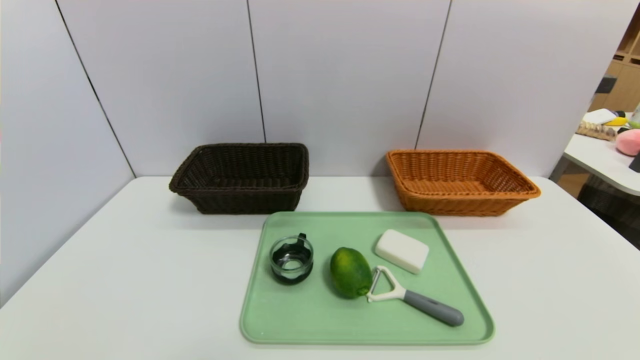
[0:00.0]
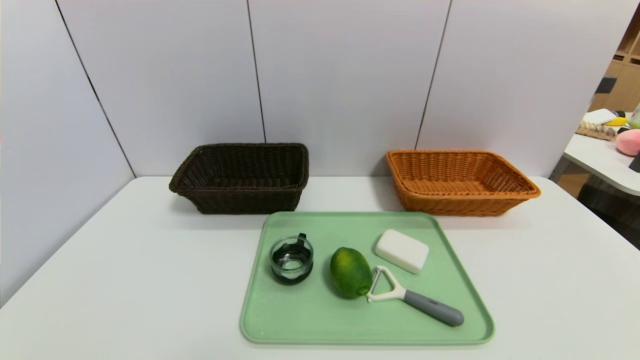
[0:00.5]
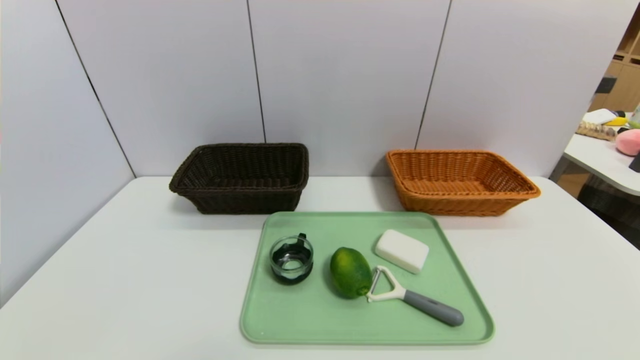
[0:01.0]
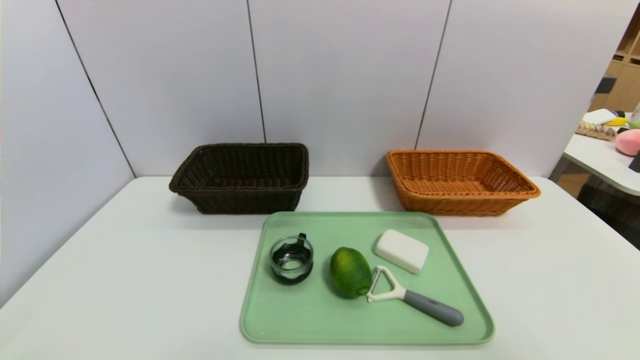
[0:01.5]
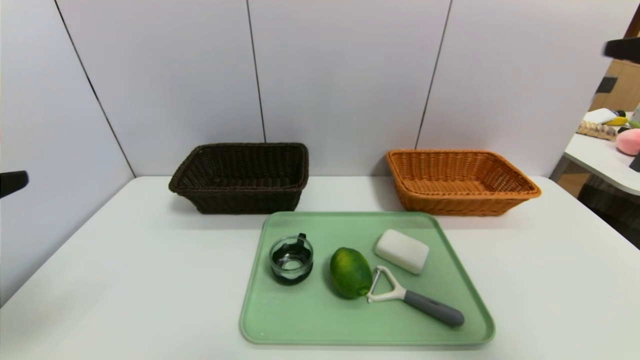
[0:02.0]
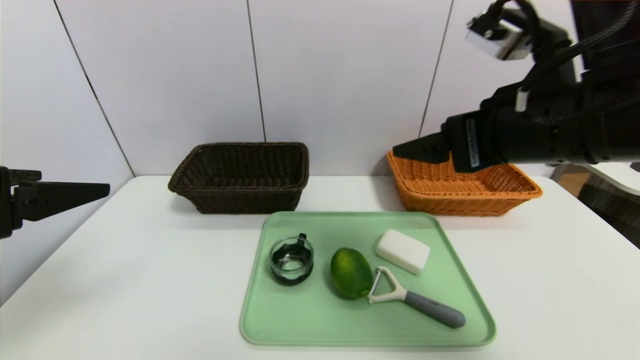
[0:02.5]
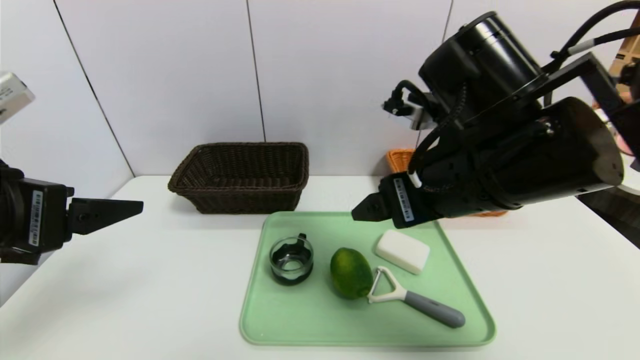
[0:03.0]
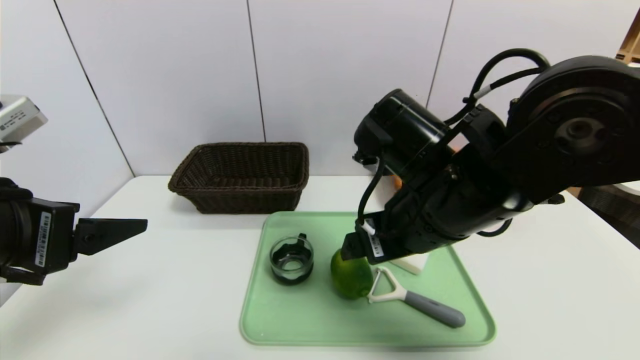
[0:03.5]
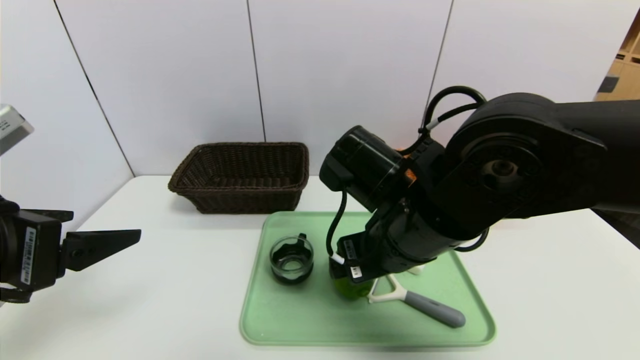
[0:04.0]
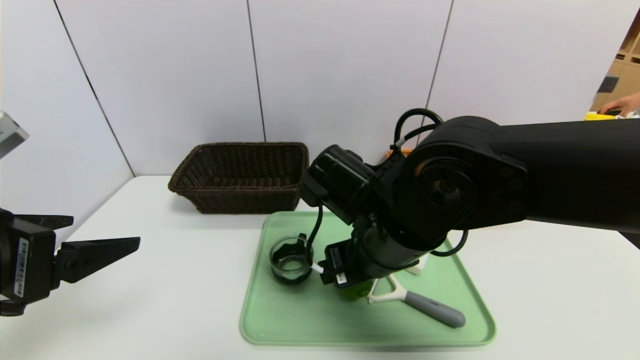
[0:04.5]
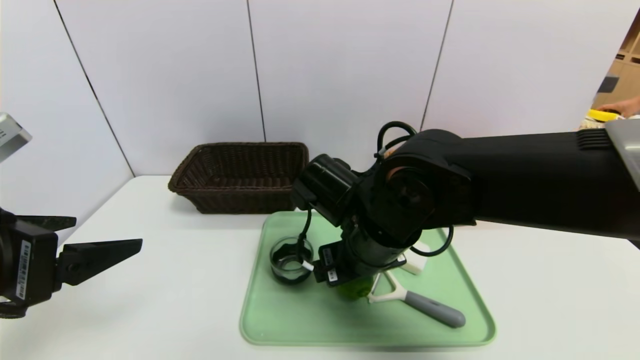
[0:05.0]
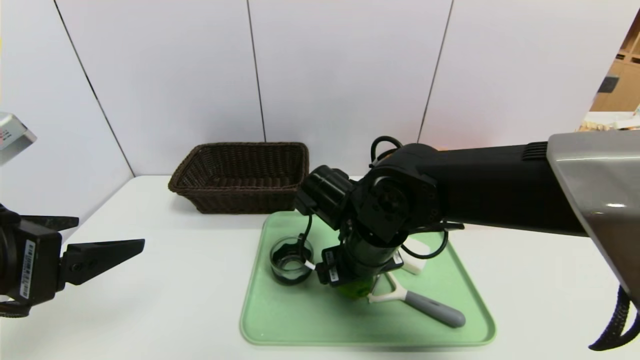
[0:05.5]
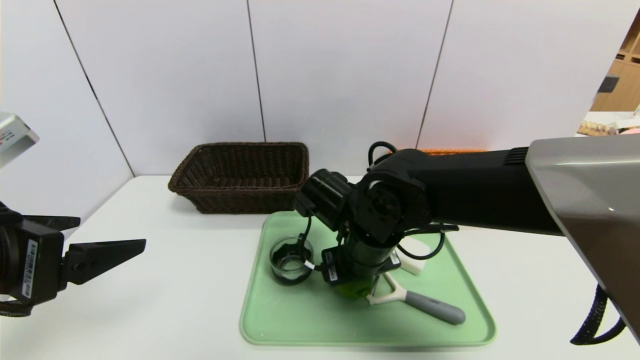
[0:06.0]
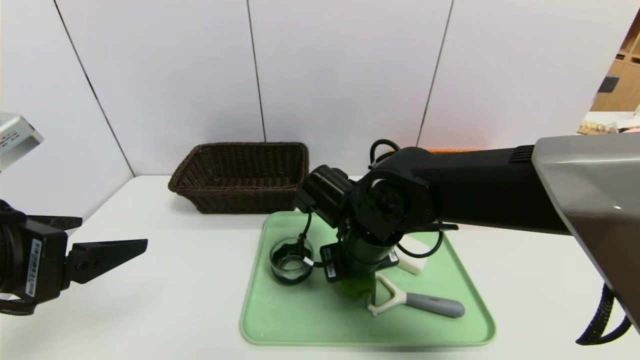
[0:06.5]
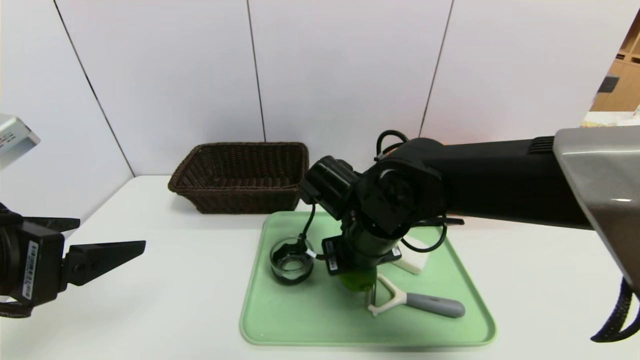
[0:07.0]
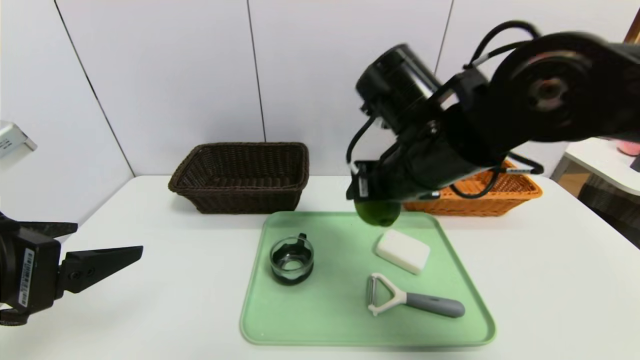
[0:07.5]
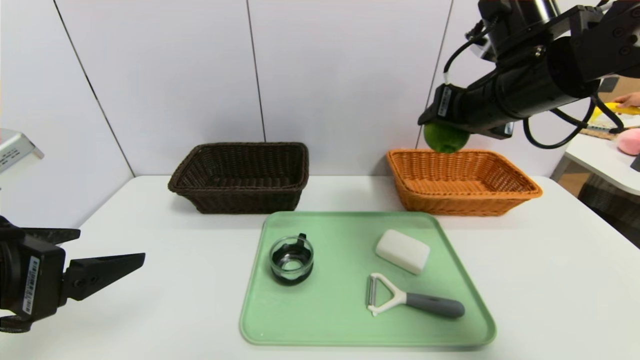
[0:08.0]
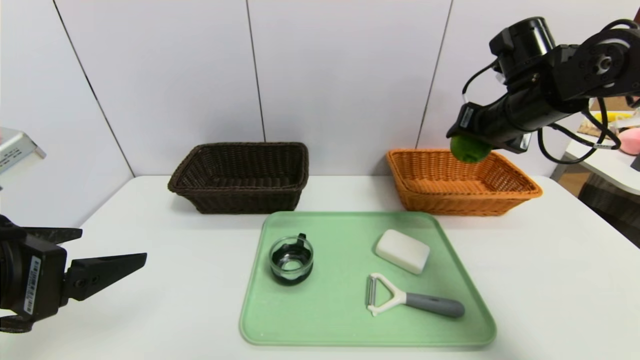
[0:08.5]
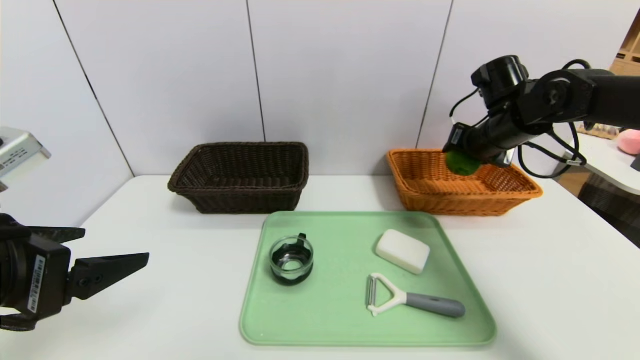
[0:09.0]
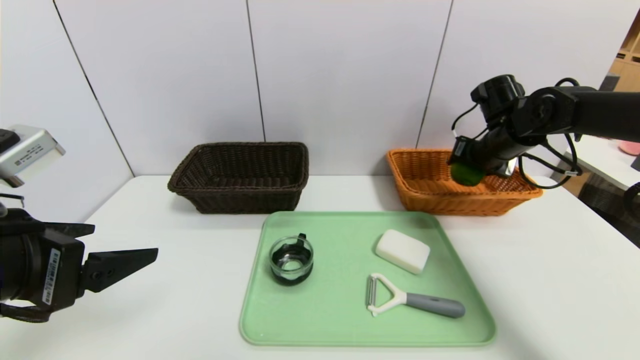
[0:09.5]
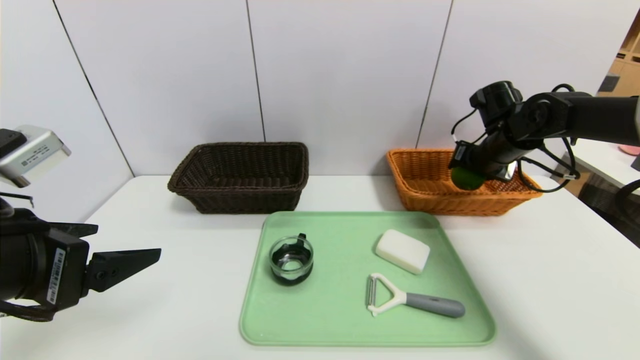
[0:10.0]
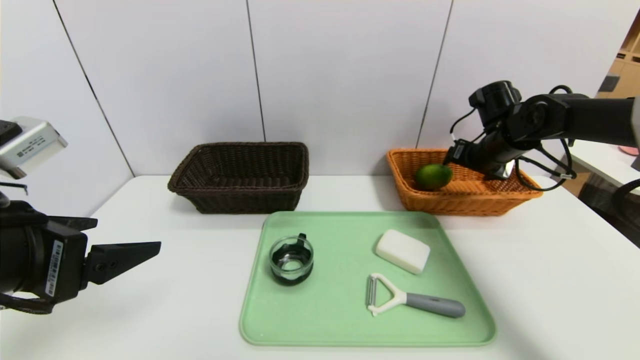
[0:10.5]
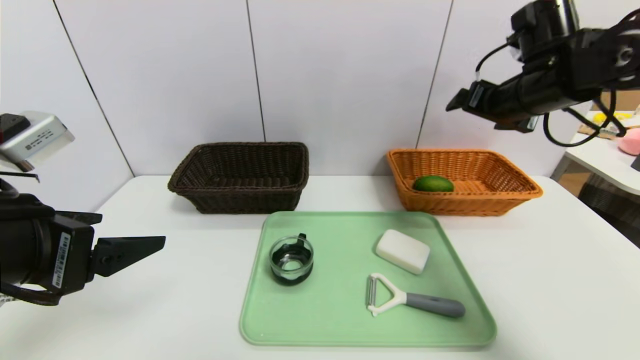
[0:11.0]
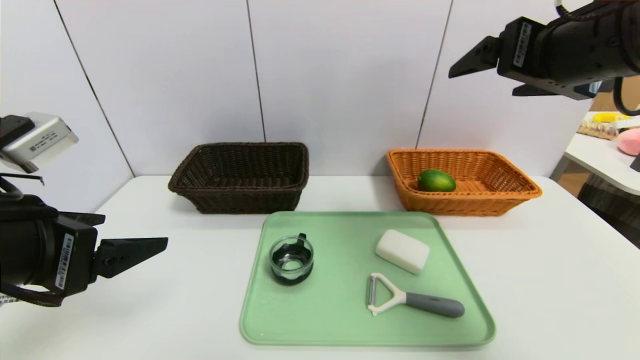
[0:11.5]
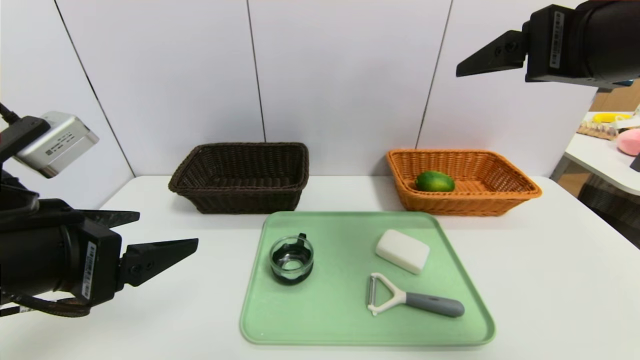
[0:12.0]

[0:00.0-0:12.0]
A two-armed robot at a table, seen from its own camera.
Task of the whole recording: place the food in the right basket with the right gripper, and place the non food items in the left basket with the left gripper.
Step, 0:00.0 to 0:10.0: Grasp the green lemon and put it in the right basket.
0:00.0 to 0:02.0: The left gripper travels upward by about 25 cm; the right gripper travels upward and forward by roughly 35 cm.
0:02.0 to 0:04.0: The left gripper changes place by roughly 5 cm. Meanwhile the right gripper moves to the left and downward, some 25 cm.
0:04.0 to 0:06.0: The right gripper is displaced downward and forward by roughly 10 cm.
0:06.0 to 0:08.0: The right gripper heads upward and to the right, covering about 25 cm.
0:08.0 to 0:10.0: The right gripper is displaced downward, forward and to the right by about 20 cm.
0:10.0 to 0:12.0: The right gripper travels backward and upward by some 30 cm, and opens its fingers.

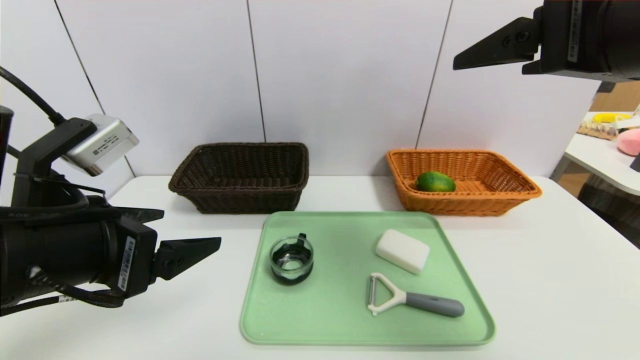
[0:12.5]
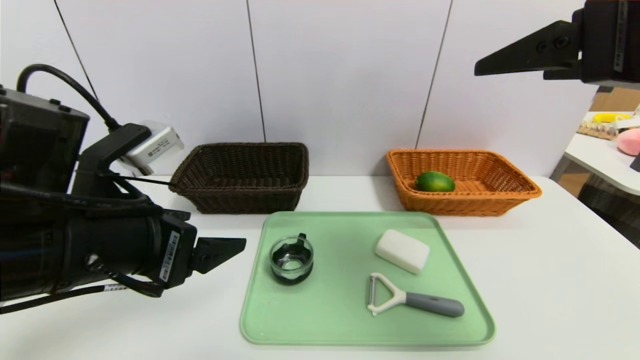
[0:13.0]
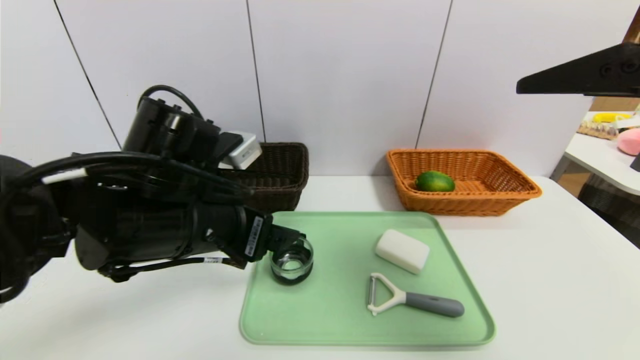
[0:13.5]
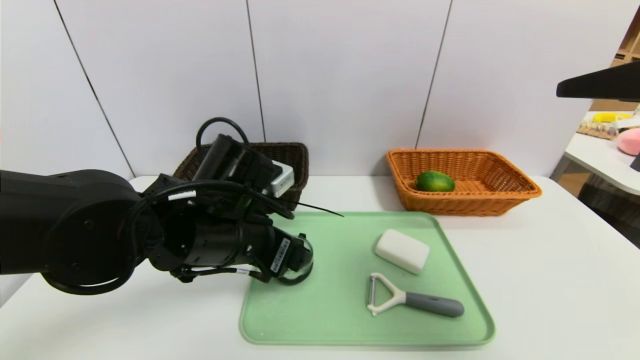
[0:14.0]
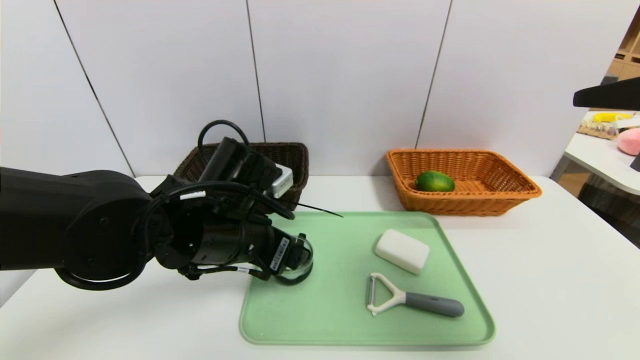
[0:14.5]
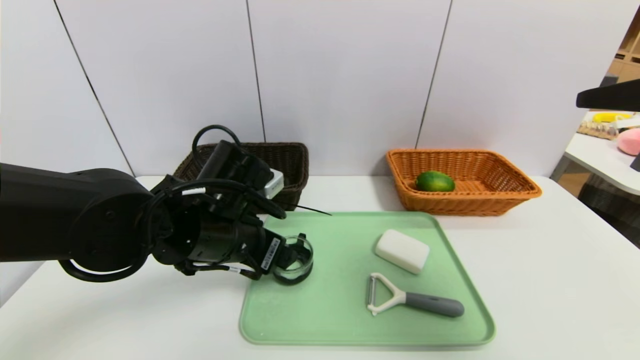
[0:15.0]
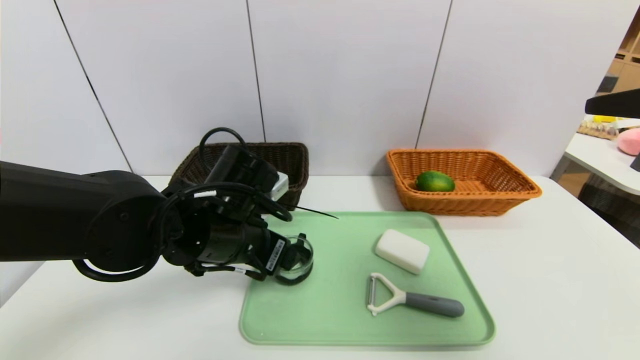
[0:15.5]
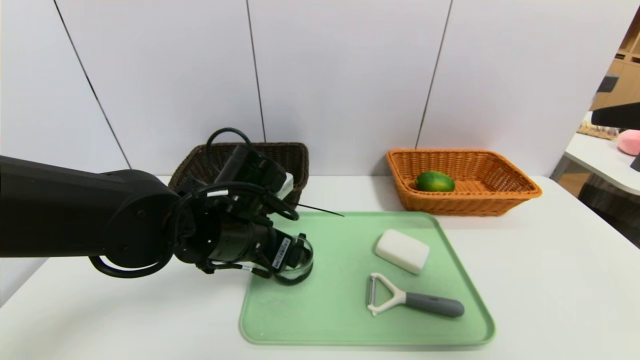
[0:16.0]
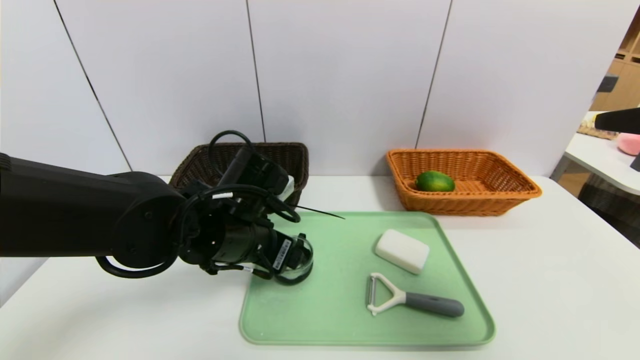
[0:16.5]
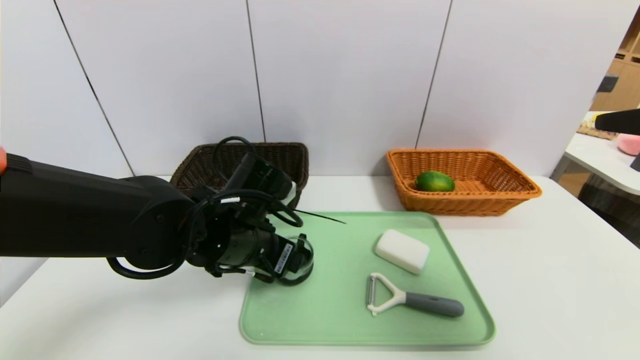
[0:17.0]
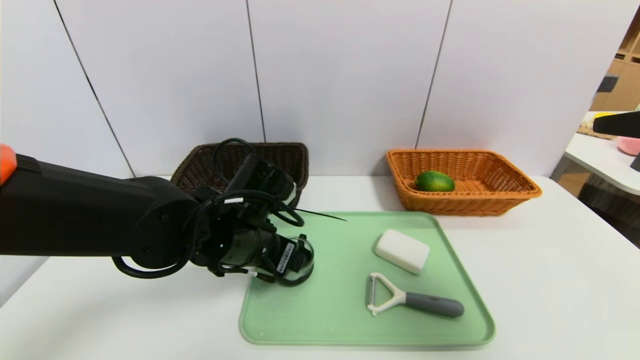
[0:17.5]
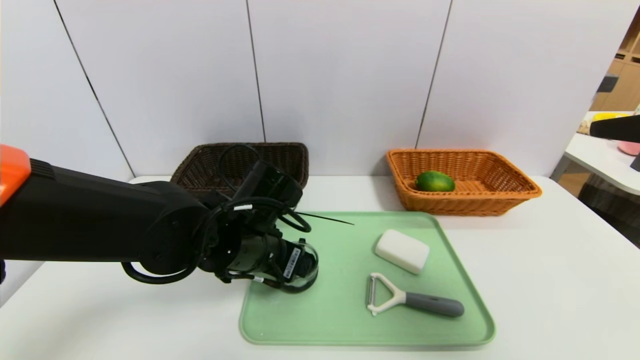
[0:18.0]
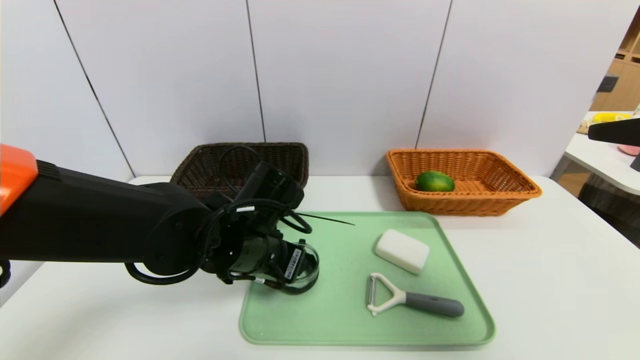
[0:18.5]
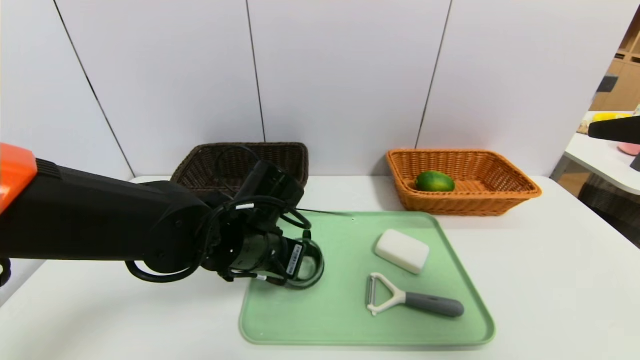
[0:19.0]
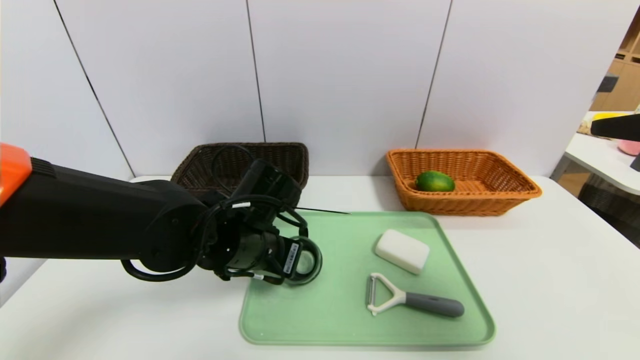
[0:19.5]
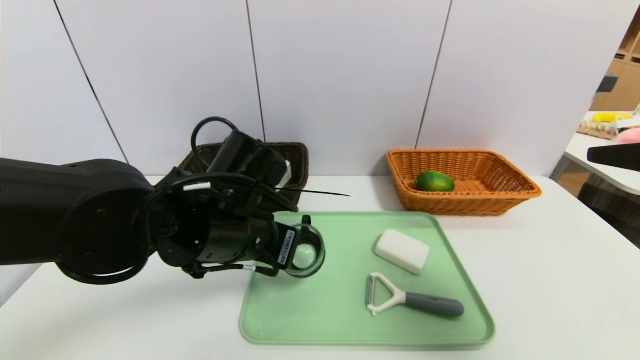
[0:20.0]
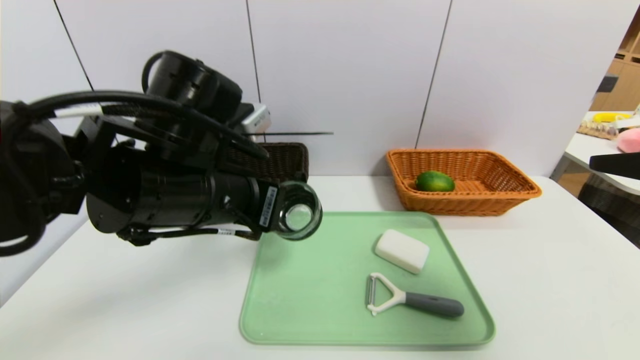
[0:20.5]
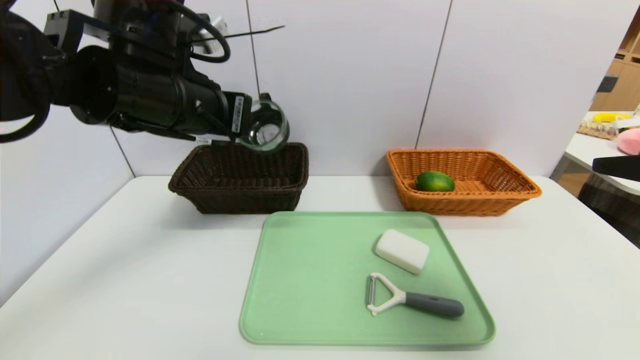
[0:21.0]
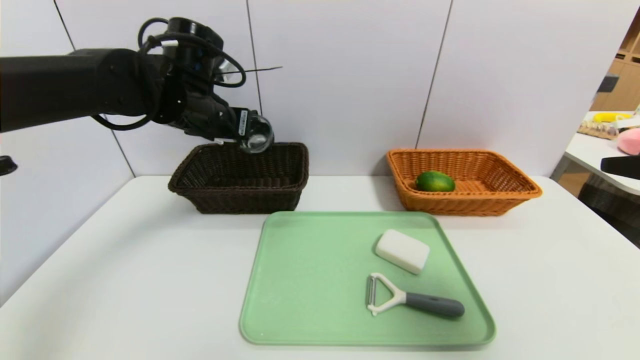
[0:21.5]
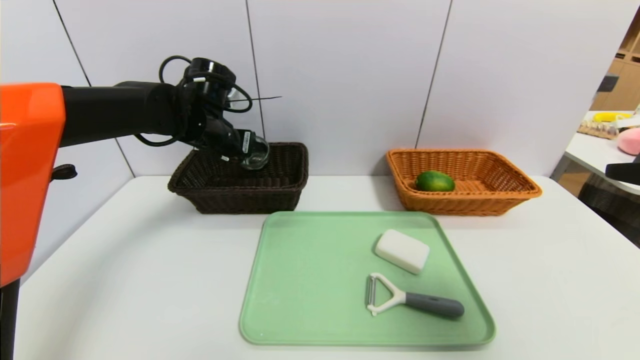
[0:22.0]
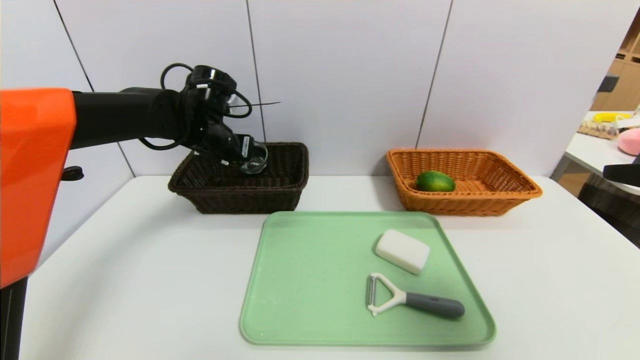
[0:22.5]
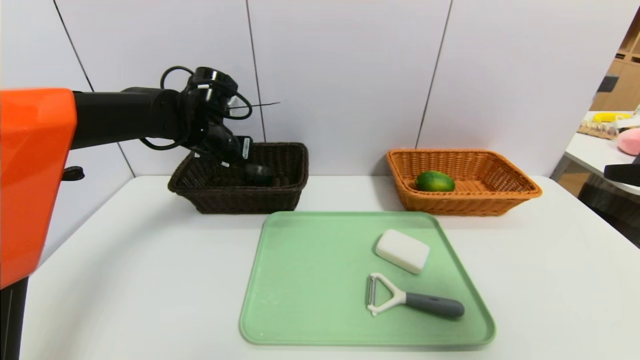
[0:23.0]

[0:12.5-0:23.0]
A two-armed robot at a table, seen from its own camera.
Task of the whole recording: place the food in the right basket with the right gripper, and place the non food items in the left basket with the left gripper.
0:12.5 to 0:14.5: The right gripper heads backward and to the right, covering roughly 10 cm; the left gripper moves forward, to the right and downward, roughly 15 cm.
0:14.5 to 0:16.5: There are only small adjustments of the grippers.
0:16.5 to 0:19.0: The left gripper closes up.
0:19.0 to 0:21.0: The left gripper goes approximately 15 cm upward.
0:21.0 to 0:23.0: The left gripper is displaced forward and downward by approximately 15 cm.
